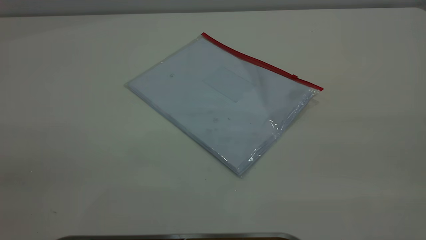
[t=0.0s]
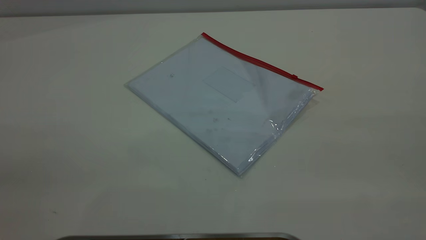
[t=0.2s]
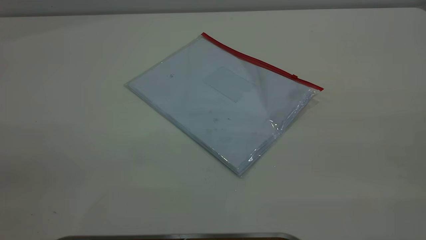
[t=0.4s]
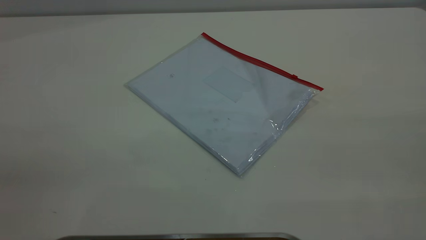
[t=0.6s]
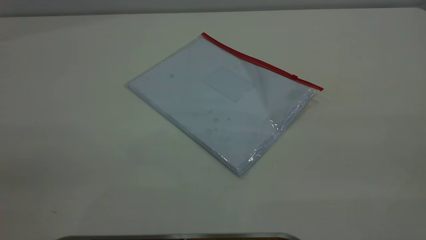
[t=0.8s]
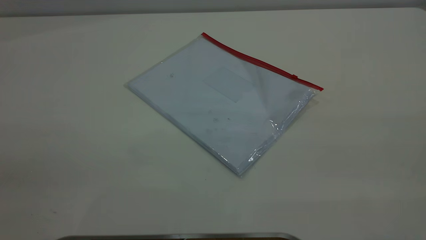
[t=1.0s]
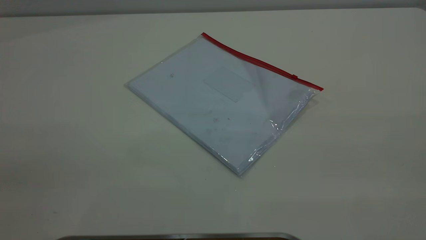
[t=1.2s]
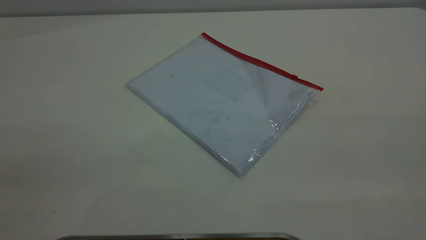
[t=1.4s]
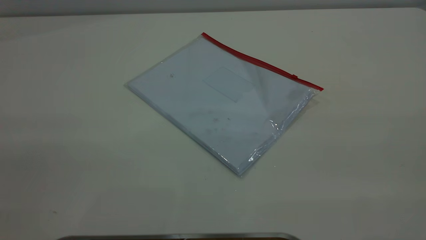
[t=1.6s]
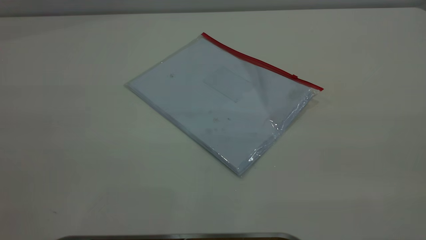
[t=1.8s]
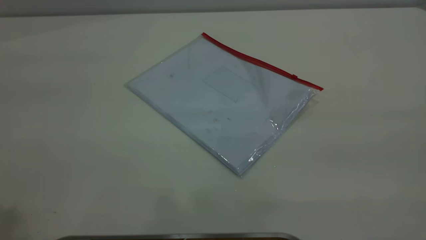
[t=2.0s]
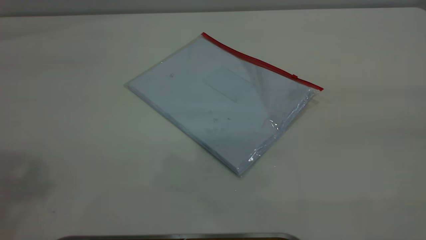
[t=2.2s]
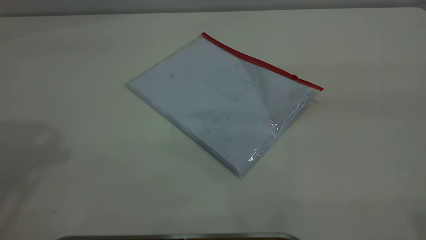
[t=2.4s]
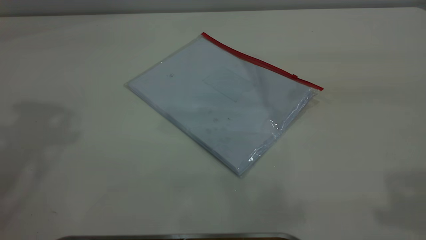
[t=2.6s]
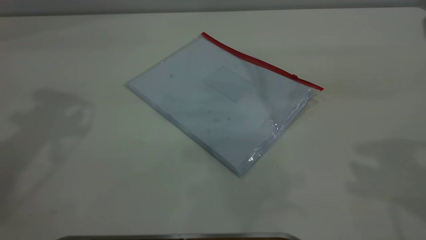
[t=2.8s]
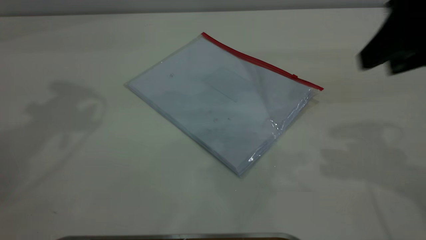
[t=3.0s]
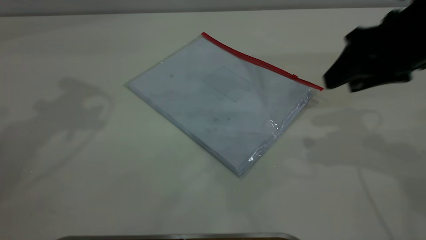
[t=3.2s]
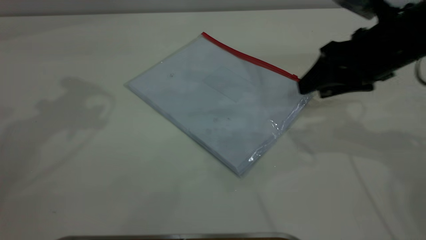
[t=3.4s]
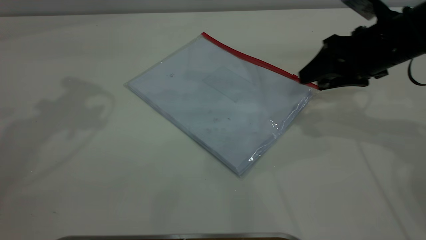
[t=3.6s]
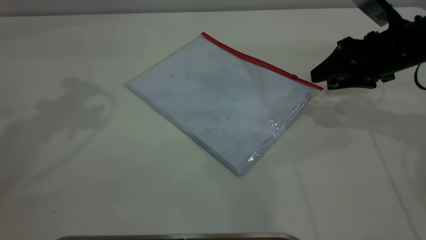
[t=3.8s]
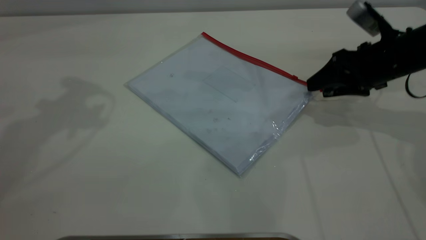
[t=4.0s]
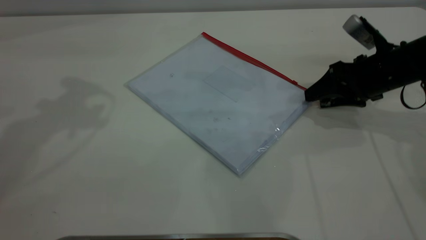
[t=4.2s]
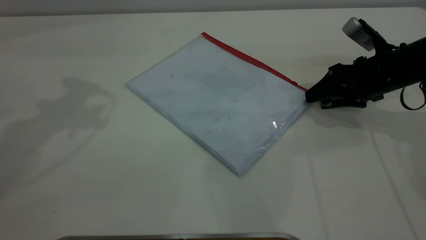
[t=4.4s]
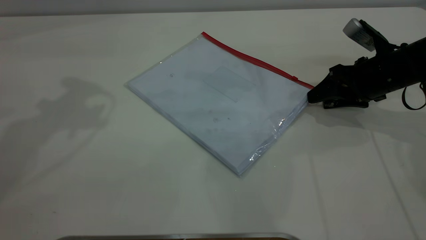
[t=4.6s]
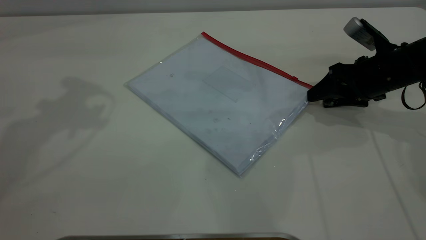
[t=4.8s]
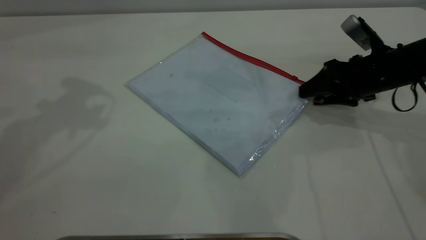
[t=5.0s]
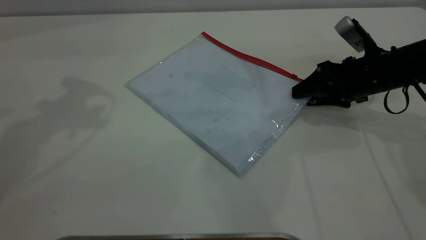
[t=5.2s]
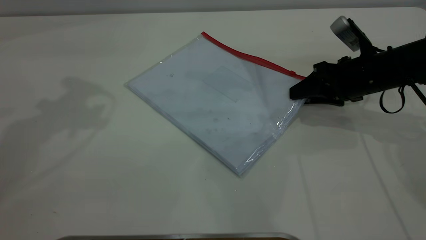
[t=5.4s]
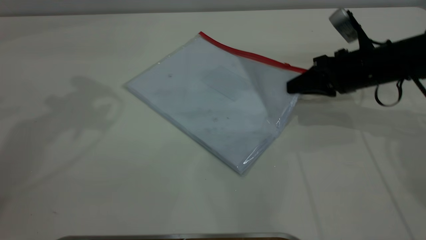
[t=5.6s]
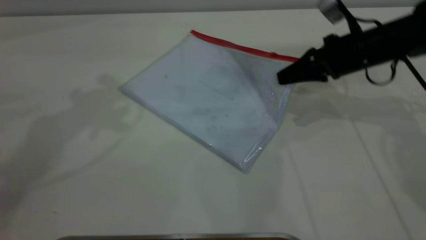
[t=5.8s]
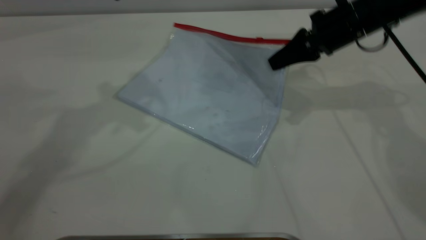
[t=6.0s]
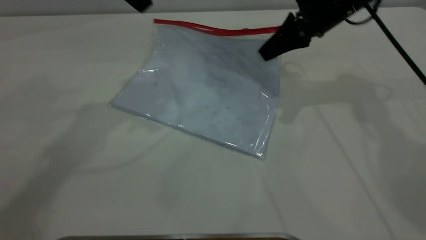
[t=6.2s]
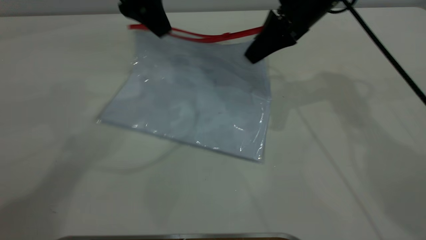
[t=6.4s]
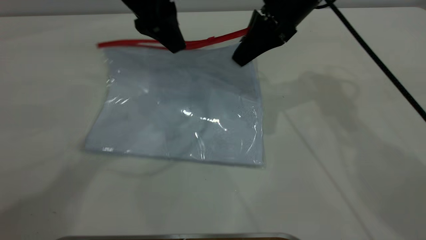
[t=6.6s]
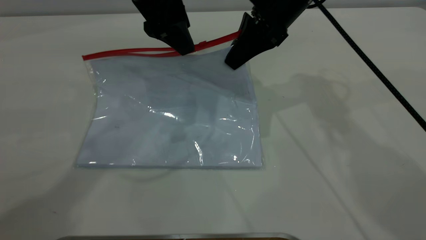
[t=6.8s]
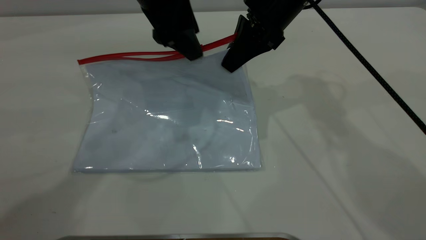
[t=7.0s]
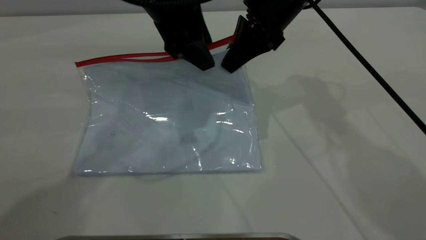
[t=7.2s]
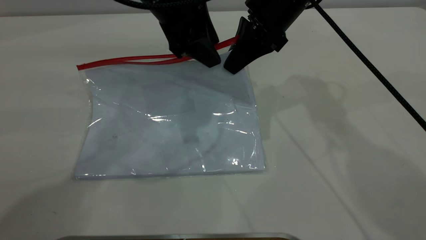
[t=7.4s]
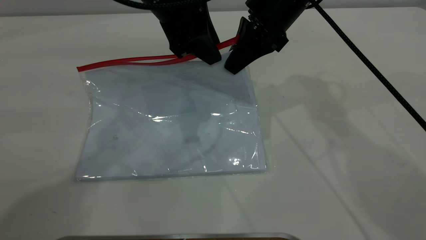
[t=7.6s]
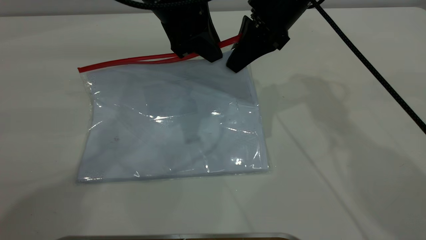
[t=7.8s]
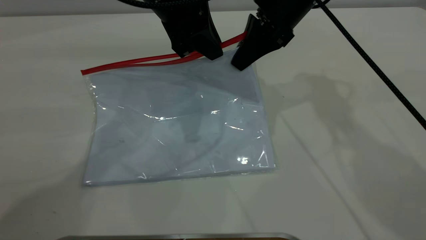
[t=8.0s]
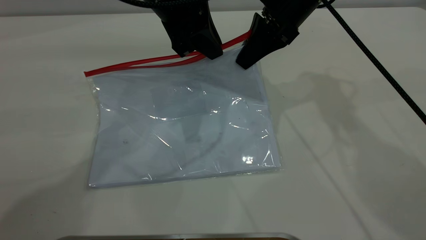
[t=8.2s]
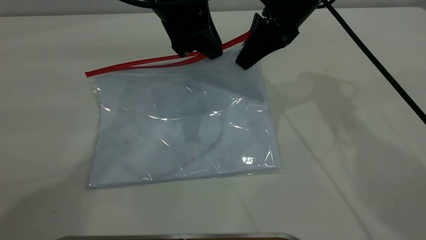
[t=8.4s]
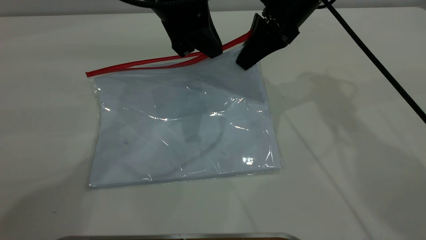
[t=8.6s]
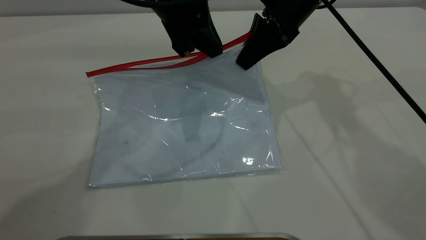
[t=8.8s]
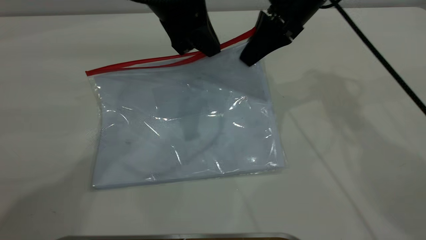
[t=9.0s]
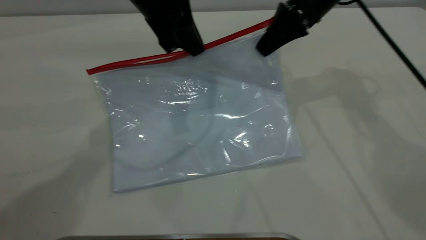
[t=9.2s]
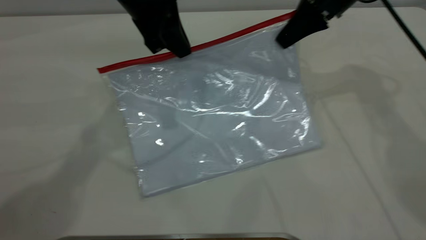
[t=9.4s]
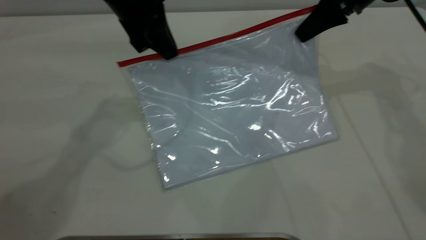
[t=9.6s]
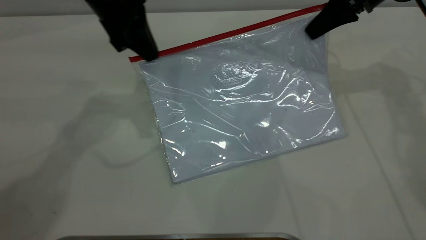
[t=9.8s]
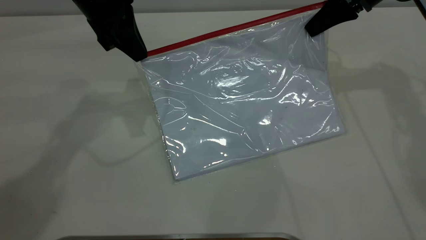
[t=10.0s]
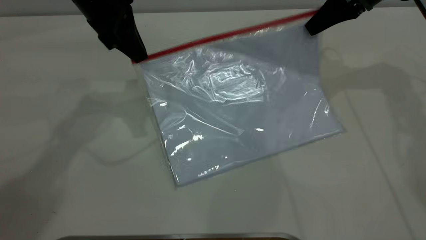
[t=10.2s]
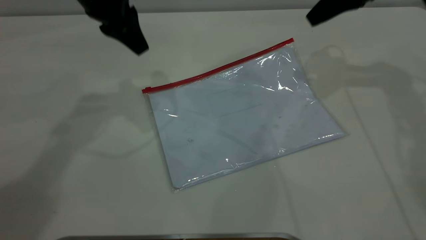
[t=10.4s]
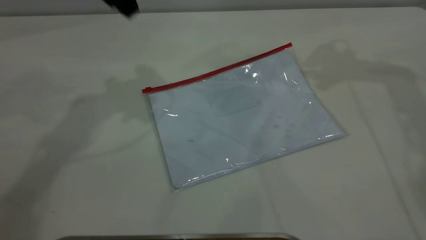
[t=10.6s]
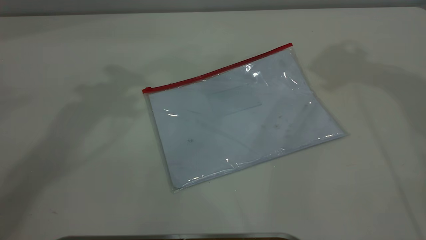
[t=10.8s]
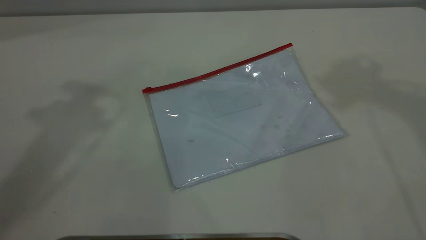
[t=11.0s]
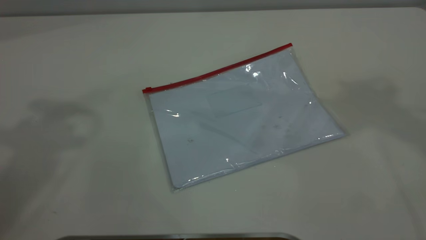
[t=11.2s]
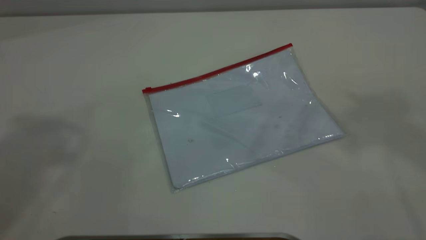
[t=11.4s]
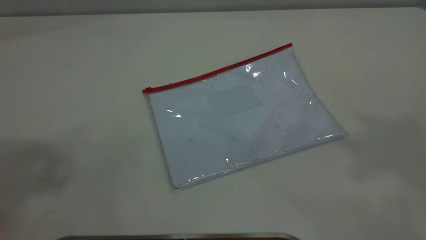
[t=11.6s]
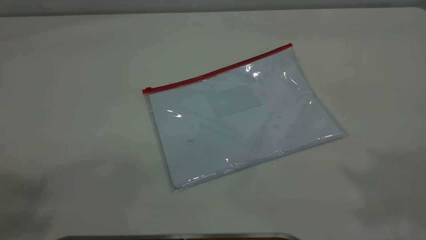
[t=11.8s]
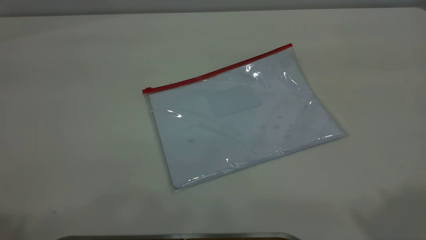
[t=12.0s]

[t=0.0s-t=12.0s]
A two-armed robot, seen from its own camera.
Step, t=0.0s to t=6.0s: Pick up the transparent plastic bag with the right gripper.
Step, t=6.2s to t=10.0s: Pulling up the zipper on the transparent plastic bag with the left gripper to close it.
Step, t=10.4s to t=11.2s: Place the transparent plastic bag.
t=1.6s to t=3.0s: The right gripper moves forward and downward, some 30 cm.
t=3.0s to t=4.4s: The right gripper travels downward and forward by about 20 cm.
t=4.4s to t=6.0s: The left gripper heads to the right, covering about 10 cm. The right gripper goes about 10 cm to the left, upward and forward, and closes its fingers.
t=6.0s to t=7.6s: The left gripper goes some 15 cm to the right and downward, and closes. Meanwhile the right gripper moves to the left, about 10 cm.
t=7.6s to t=9.0s: The left gripper closes its fingers.
t=9.0s to t=10.4s: The right gripper goes about 10 cm to the right, and opens its fingers; the left gripper goes some 10 cm to the left, and opens its fingers.
t=10.4s to t=12.0s: The two grippers go about 40 cm backward and upward. The left gripper opens its fingers.

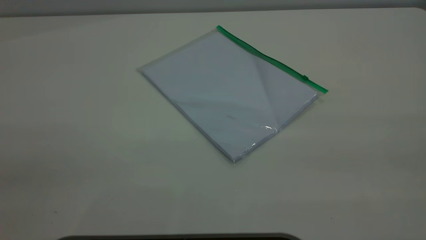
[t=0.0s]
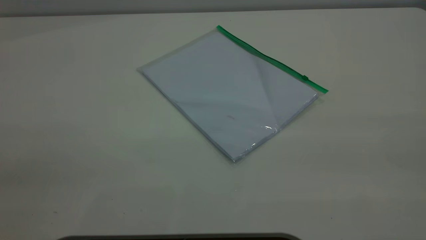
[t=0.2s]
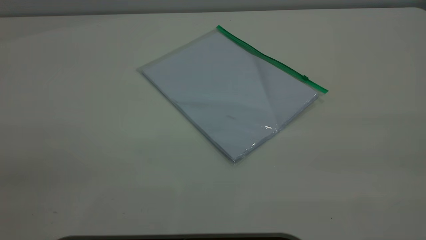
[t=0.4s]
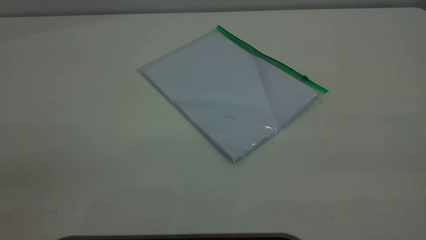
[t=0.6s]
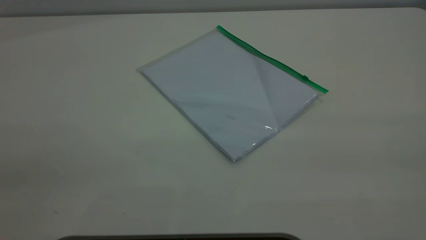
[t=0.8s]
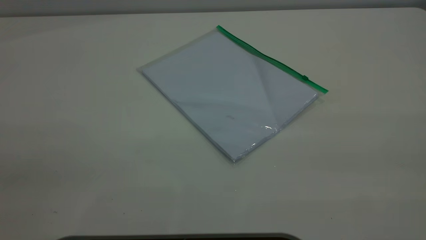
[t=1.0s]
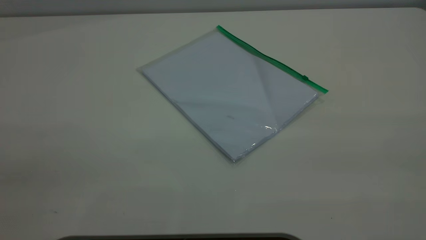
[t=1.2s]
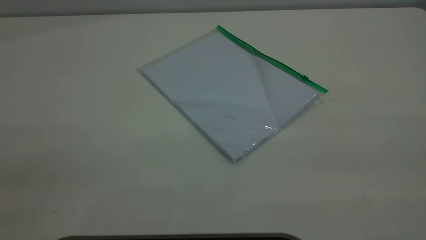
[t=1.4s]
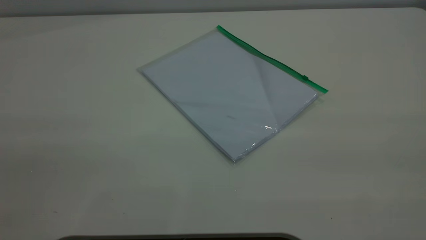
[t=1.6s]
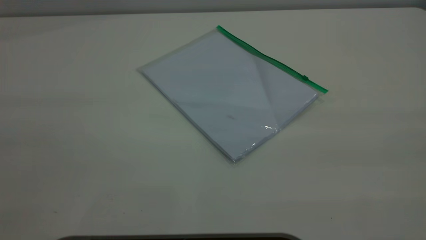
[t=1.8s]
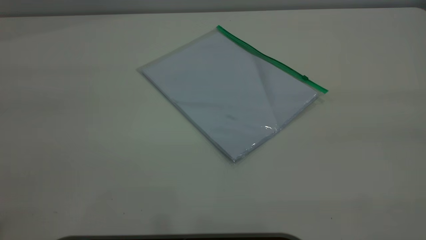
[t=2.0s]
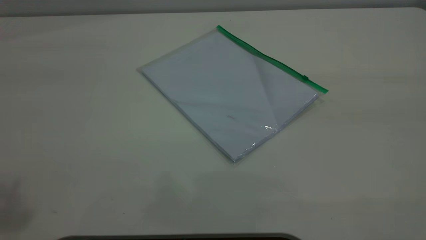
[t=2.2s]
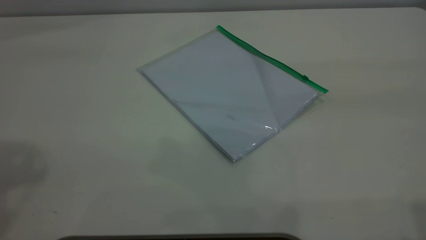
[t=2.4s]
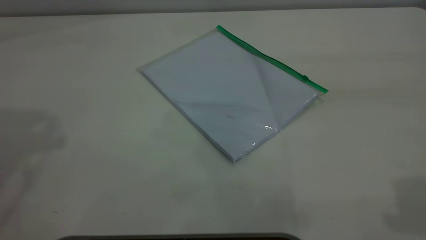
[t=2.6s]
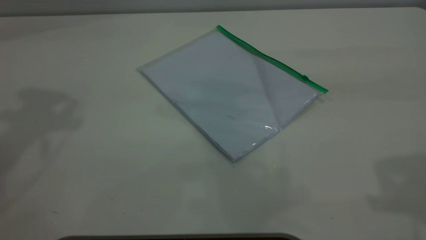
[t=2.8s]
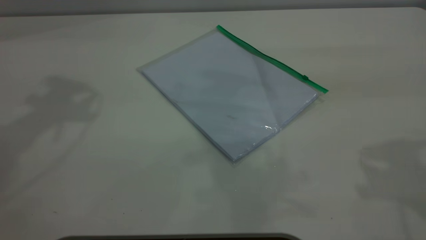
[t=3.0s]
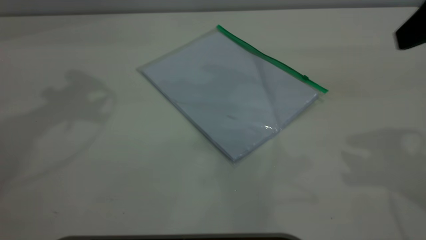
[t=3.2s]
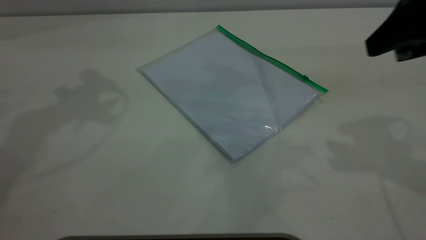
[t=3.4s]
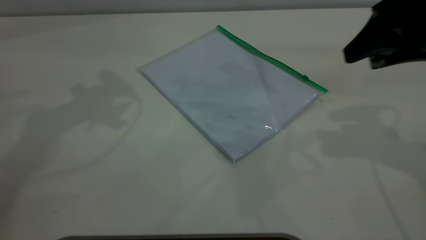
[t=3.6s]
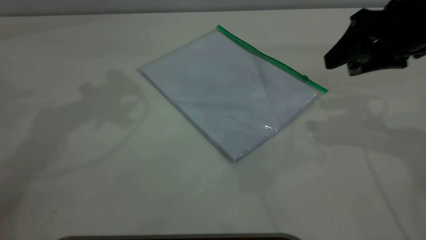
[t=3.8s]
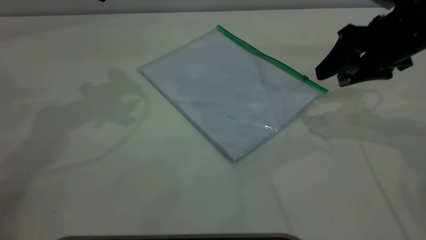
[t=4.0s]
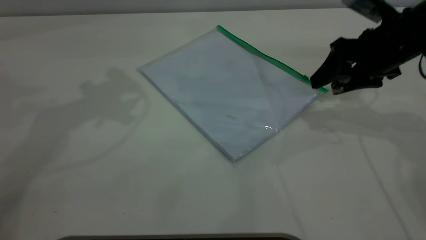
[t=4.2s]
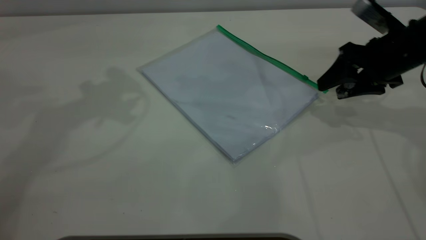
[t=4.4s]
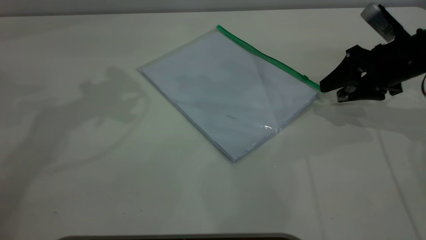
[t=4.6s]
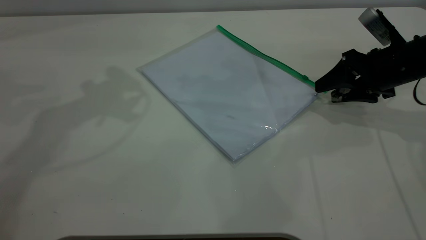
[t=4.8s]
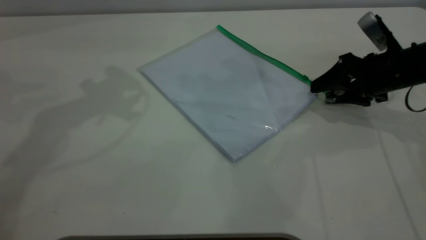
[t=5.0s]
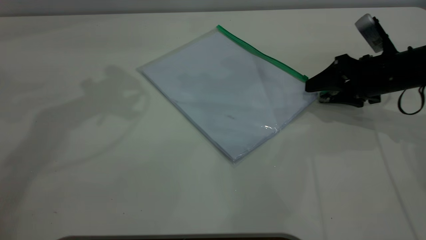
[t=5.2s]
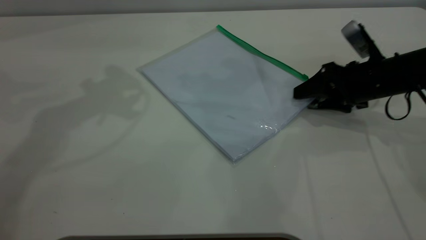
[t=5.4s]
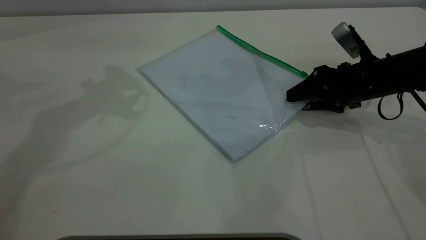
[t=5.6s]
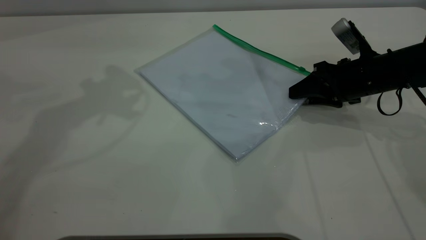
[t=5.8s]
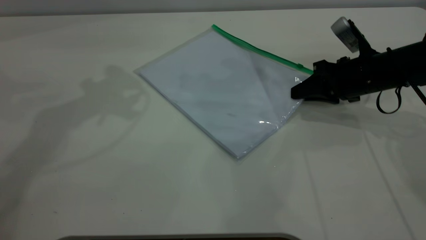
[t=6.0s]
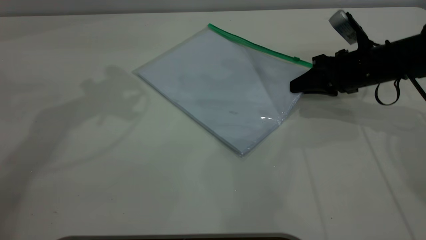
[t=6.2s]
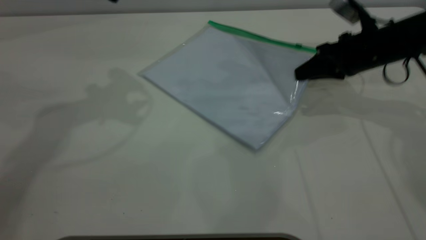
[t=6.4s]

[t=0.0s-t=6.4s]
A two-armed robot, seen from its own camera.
t=1.6s to t=3.2s: The right gripper moves forward, about 25 cm.
t=3.2s to t=4.8s: The right gripper moves downward and forward, roughly 25 cm.
t=4.8s to t=6.4s: The right gripper changes place by approximately 5 cm, and closes its fingers.
